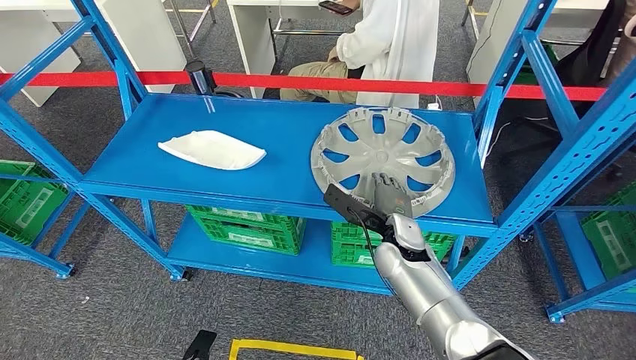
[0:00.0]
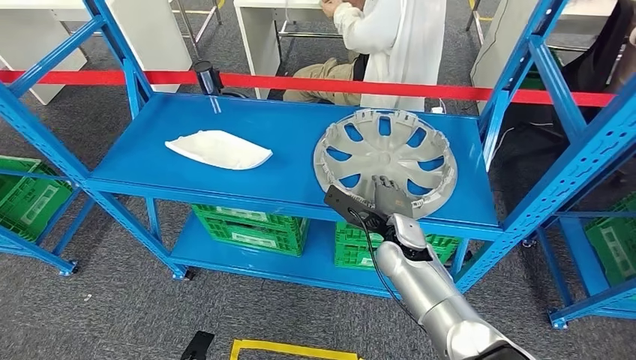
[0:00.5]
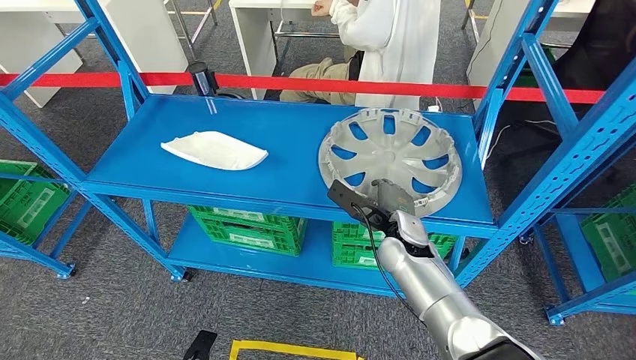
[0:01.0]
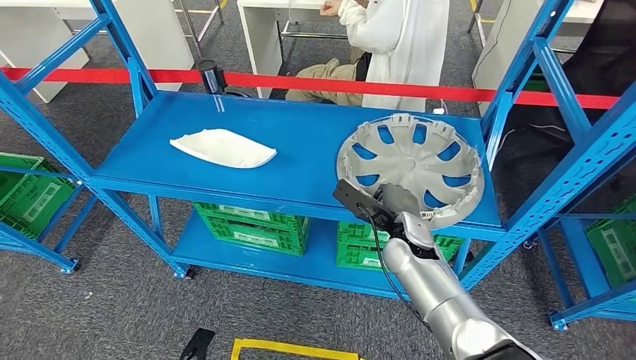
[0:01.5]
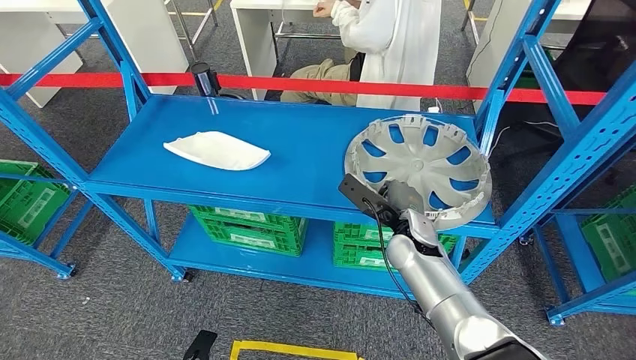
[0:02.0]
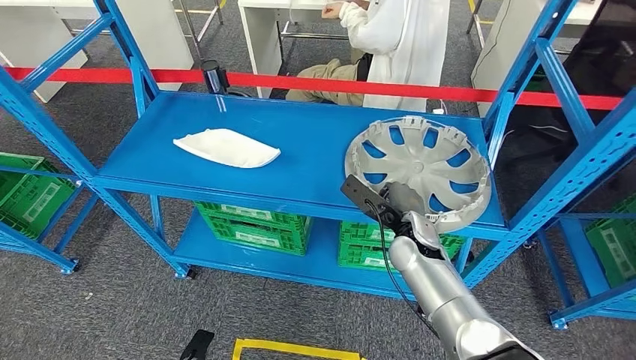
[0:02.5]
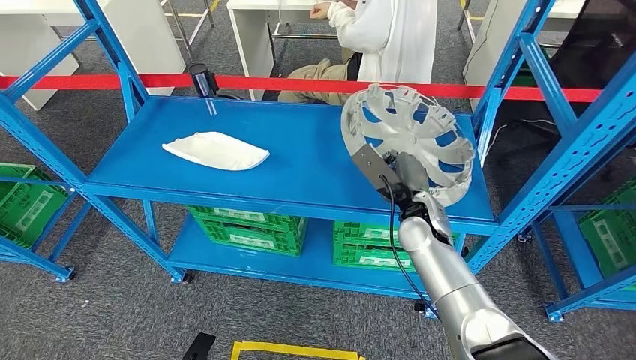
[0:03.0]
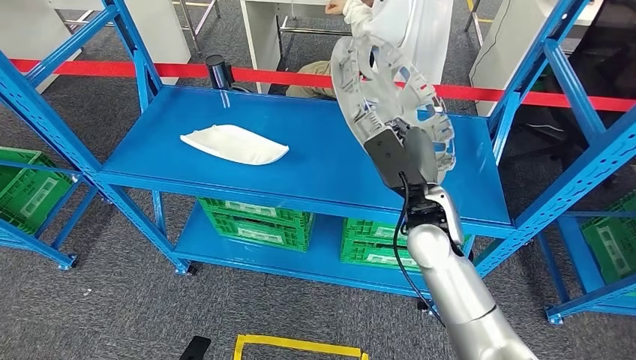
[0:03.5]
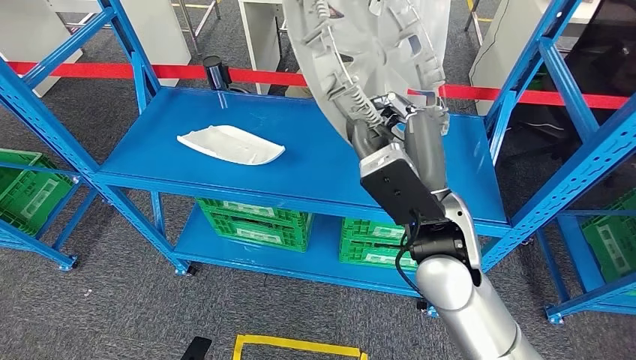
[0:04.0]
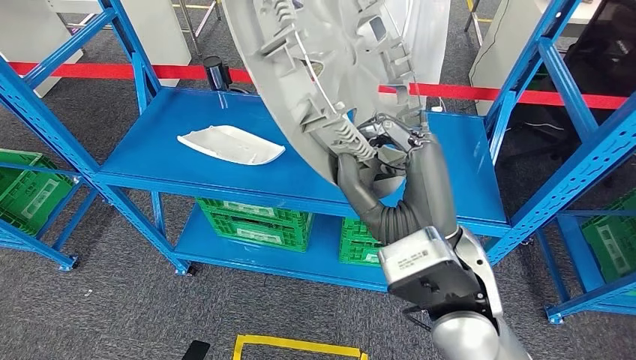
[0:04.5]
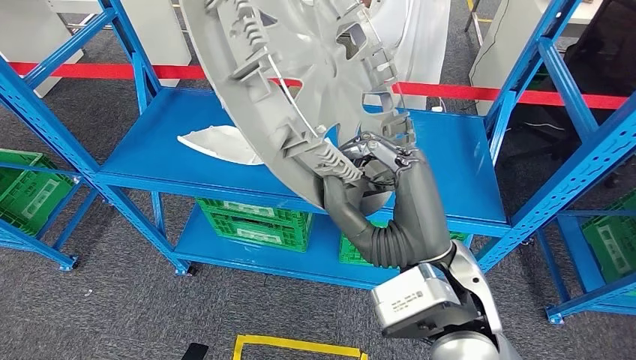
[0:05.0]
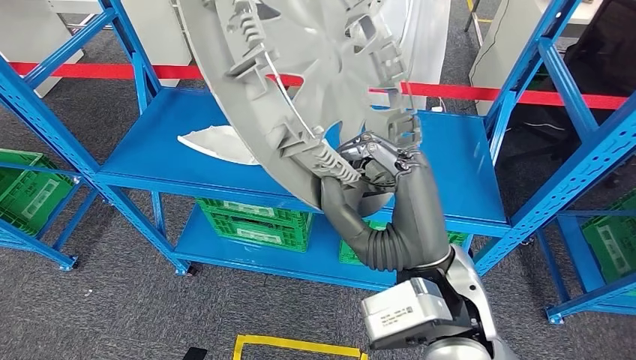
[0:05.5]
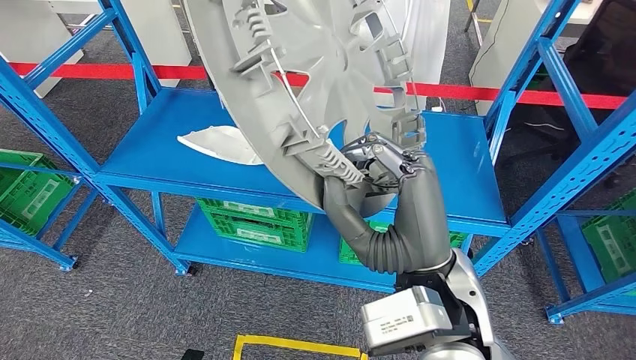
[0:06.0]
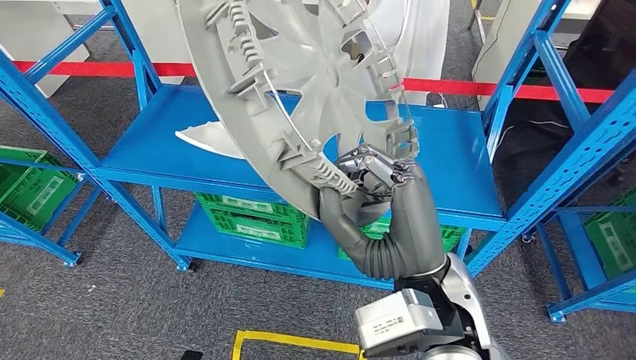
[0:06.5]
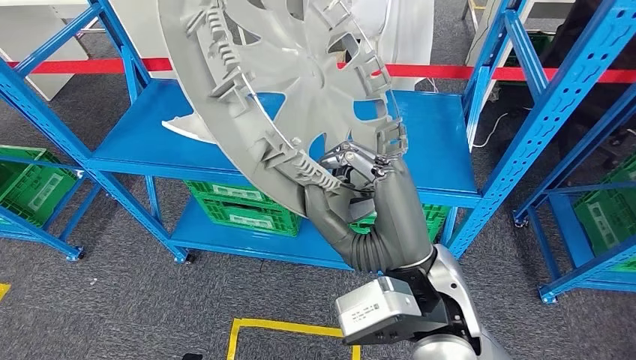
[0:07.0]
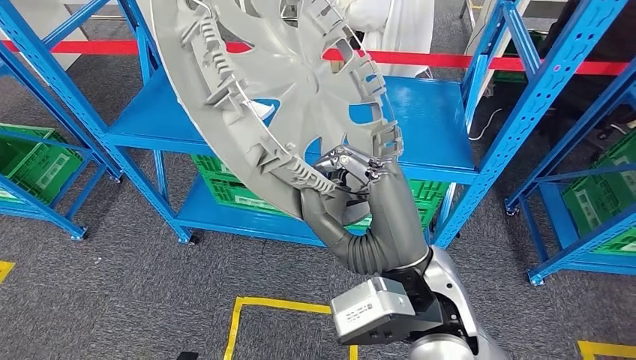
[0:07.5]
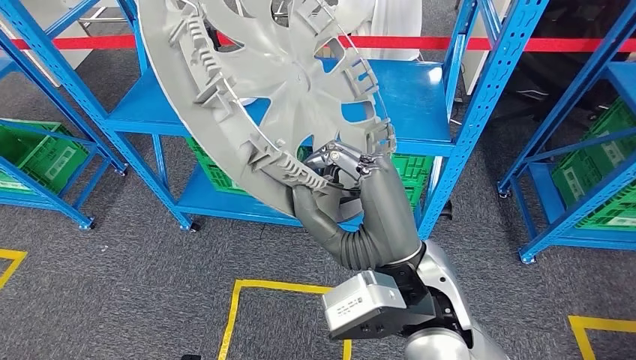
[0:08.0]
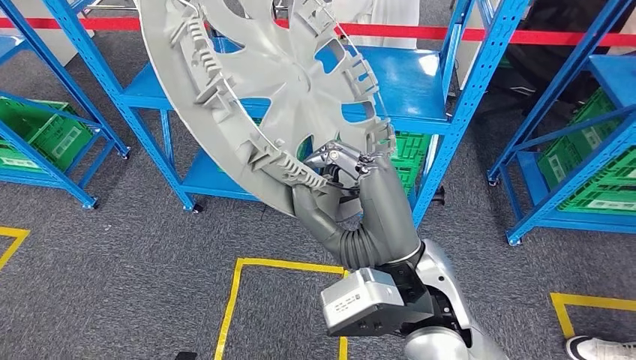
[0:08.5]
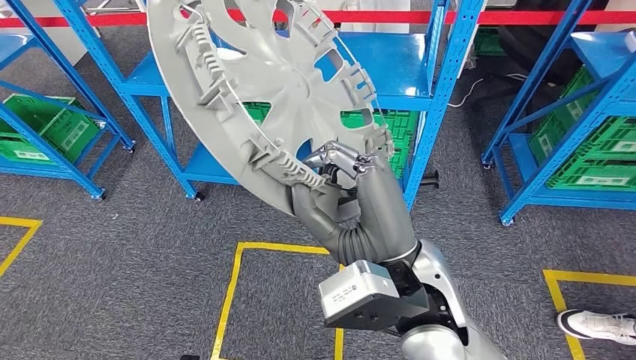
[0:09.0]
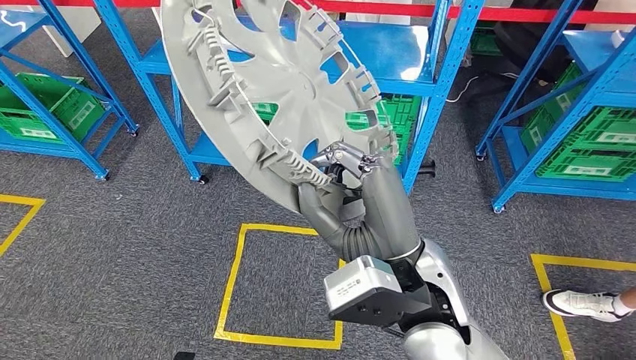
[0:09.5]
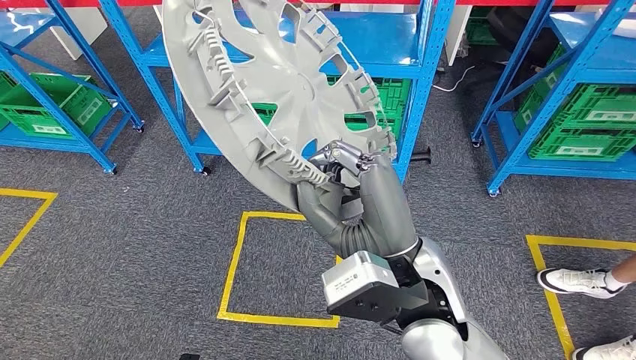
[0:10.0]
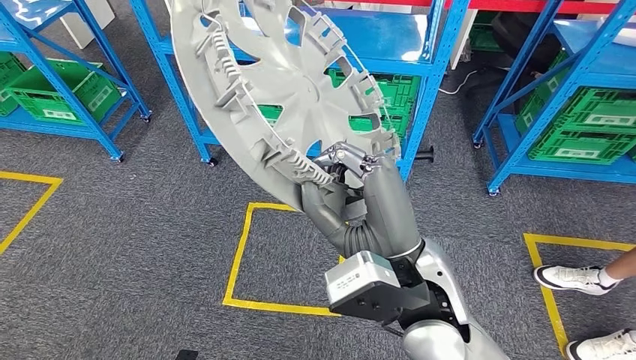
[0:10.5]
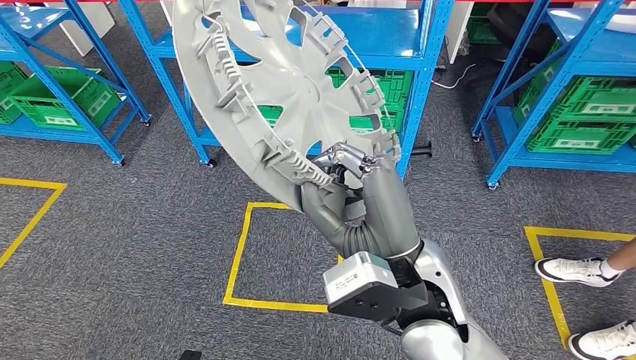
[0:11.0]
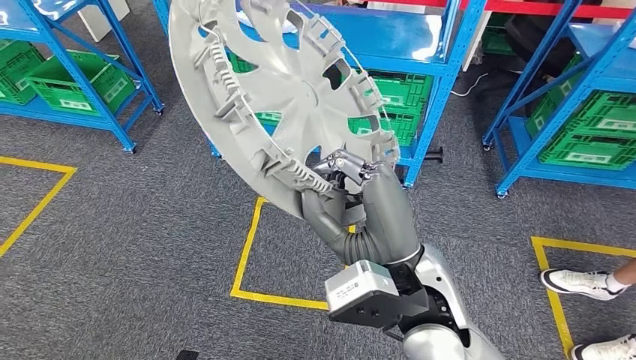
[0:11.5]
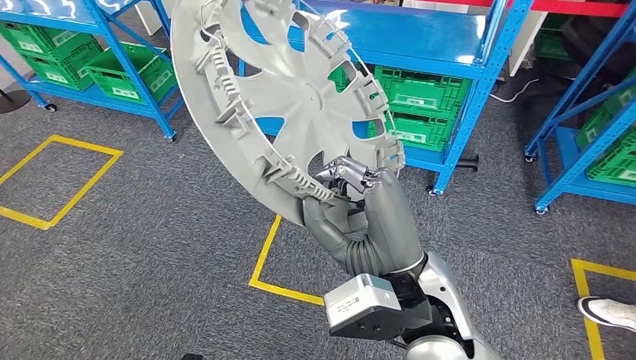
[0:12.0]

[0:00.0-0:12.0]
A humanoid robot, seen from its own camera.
Step, 0:00.0 to 0:03.5: Pick up the large material from the shelf.

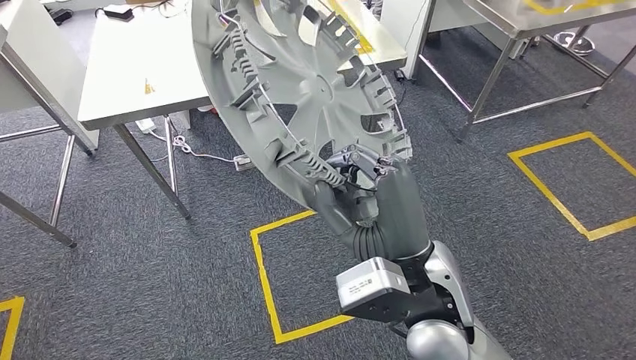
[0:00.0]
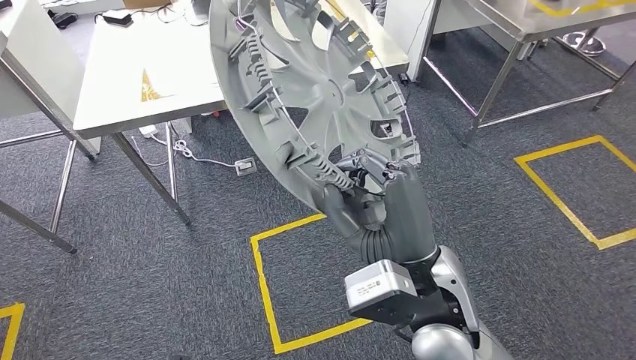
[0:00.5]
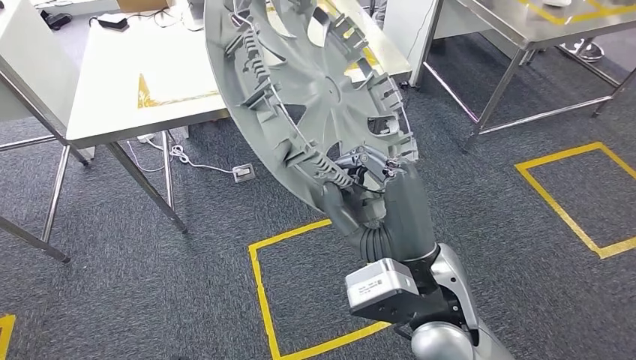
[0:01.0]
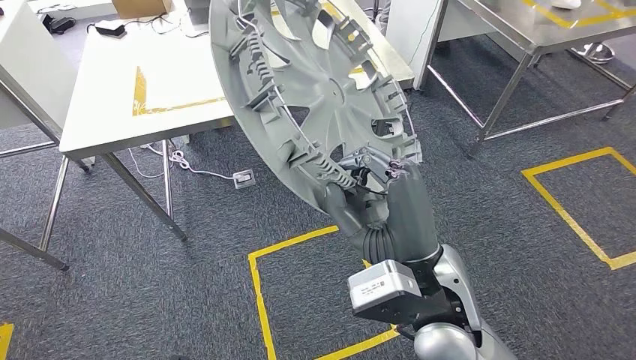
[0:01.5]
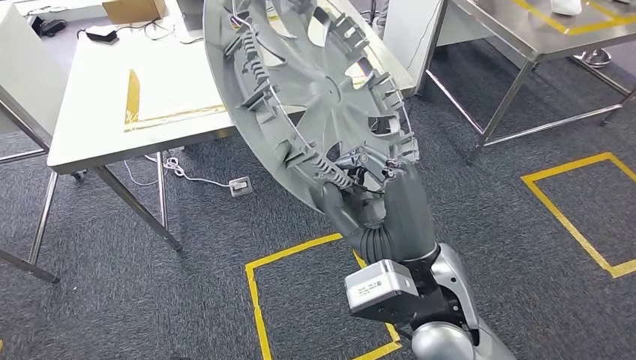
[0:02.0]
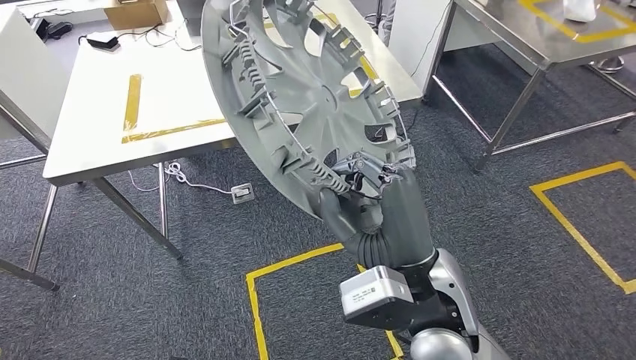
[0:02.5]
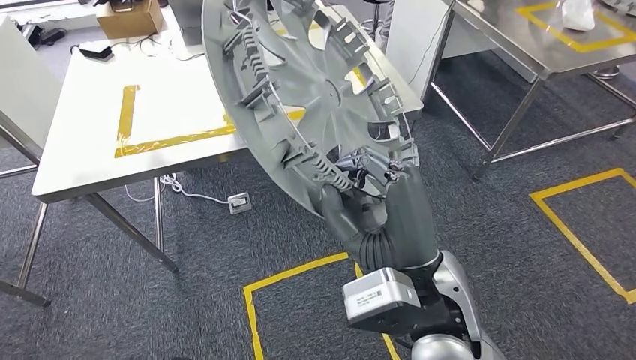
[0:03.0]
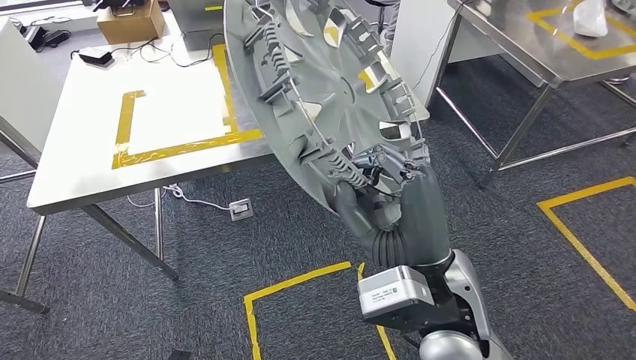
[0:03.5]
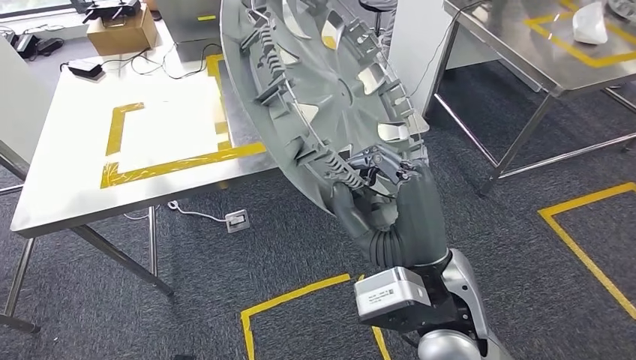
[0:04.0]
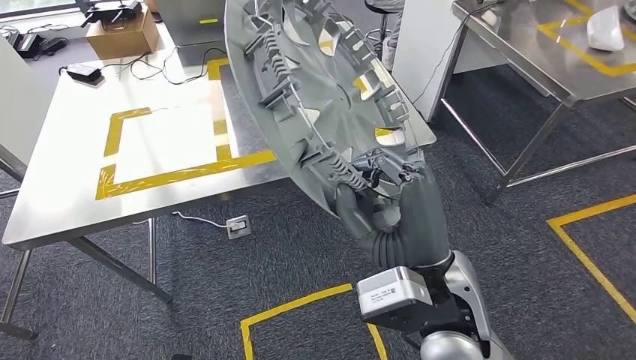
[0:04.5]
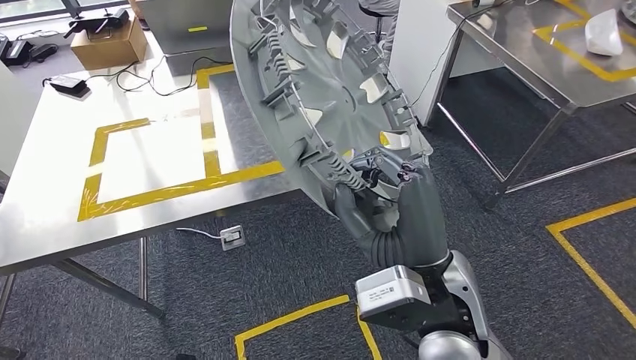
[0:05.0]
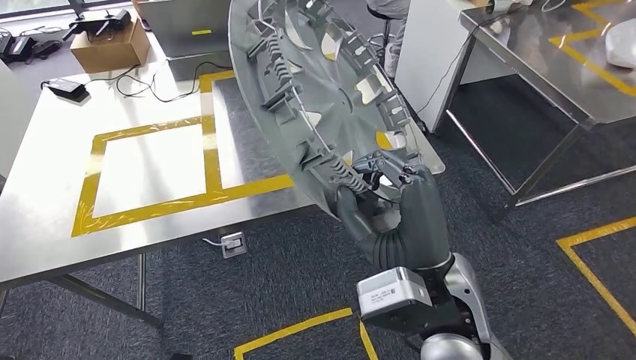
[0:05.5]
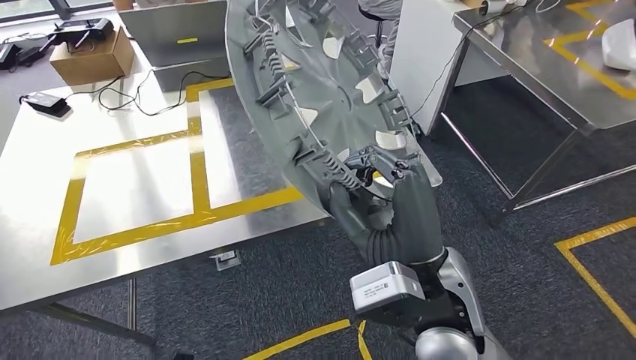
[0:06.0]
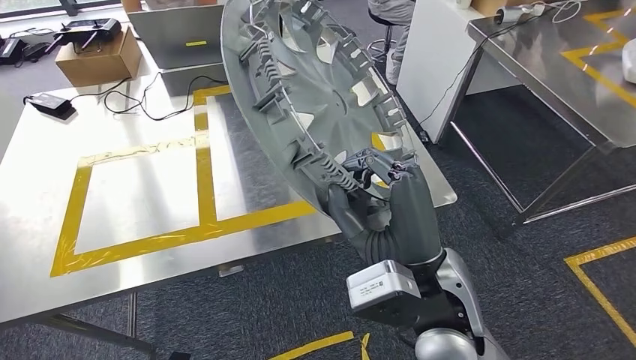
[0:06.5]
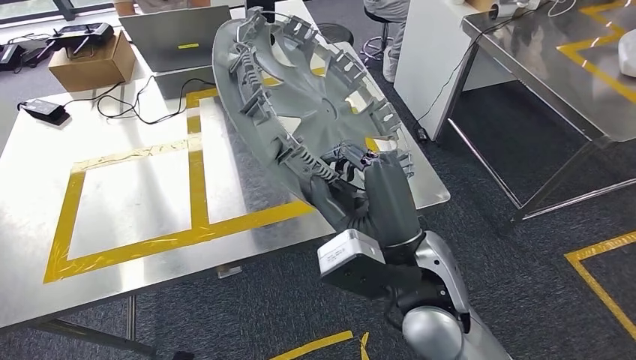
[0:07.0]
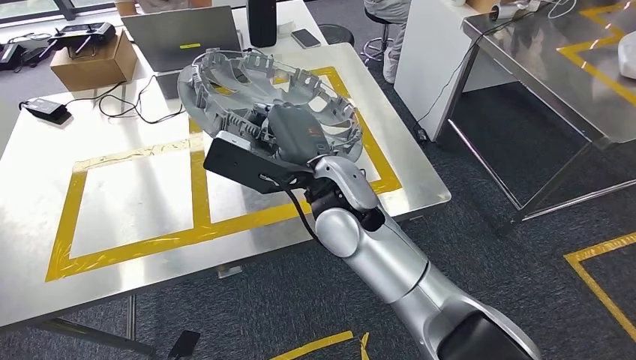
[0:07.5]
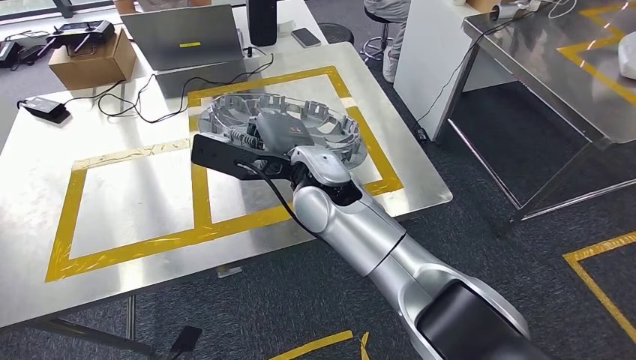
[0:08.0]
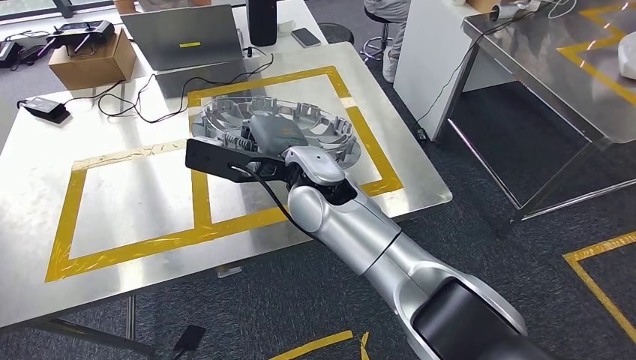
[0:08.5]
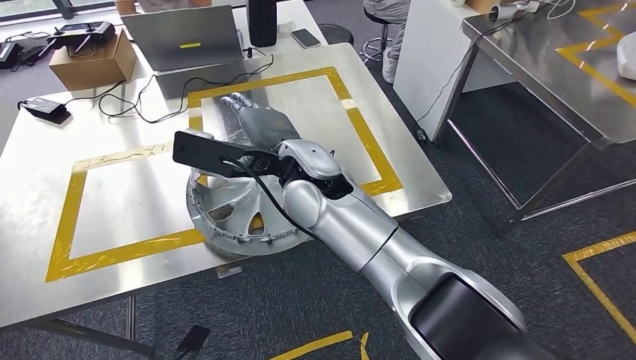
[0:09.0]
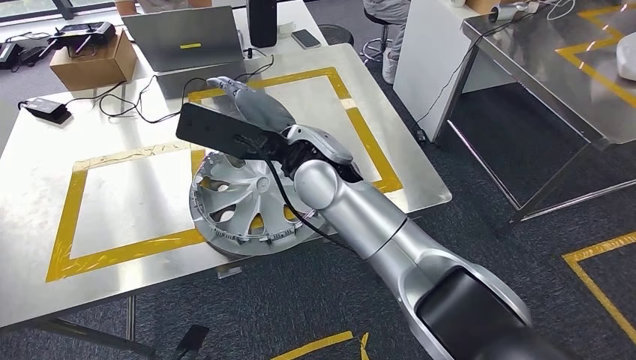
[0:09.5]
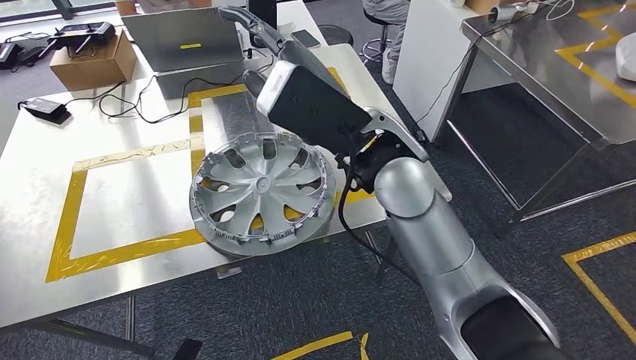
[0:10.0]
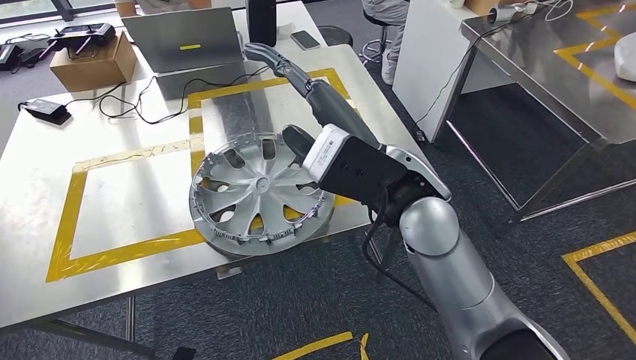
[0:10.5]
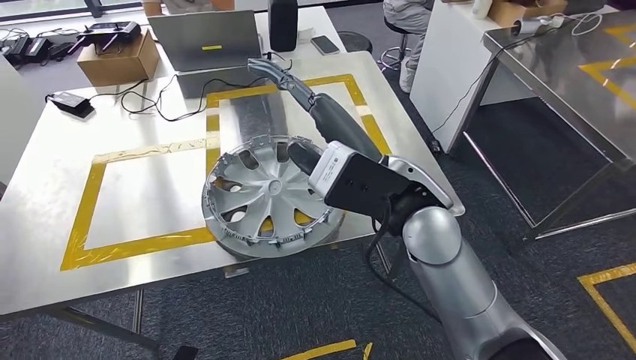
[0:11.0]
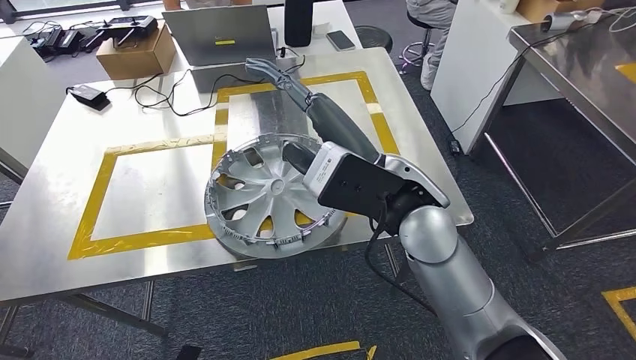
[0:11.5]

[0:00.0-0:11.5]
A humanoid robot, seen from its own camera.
Step, 0:00.0 to 0:05.5: Move the large material to the workbench.
Step, 0:06.0 to 0:09.5: Insert the large material into the corresponding slot on the workbench.
